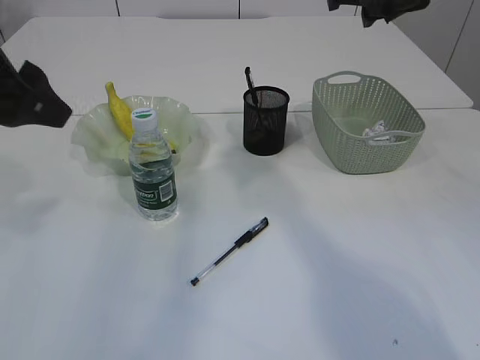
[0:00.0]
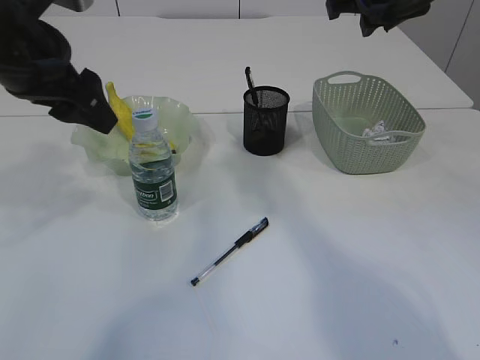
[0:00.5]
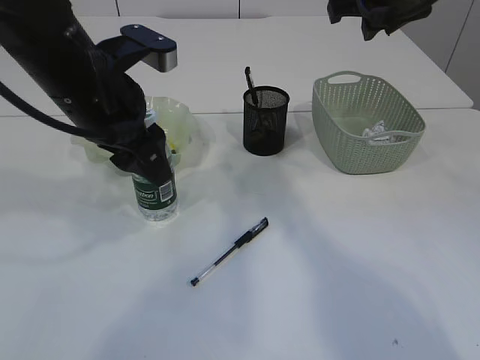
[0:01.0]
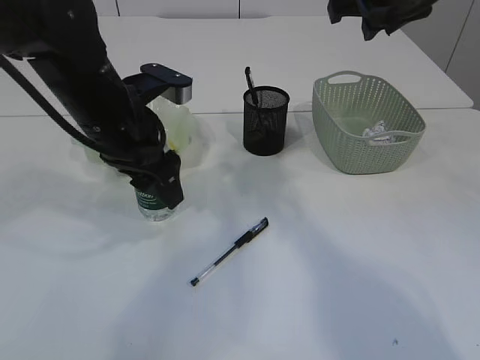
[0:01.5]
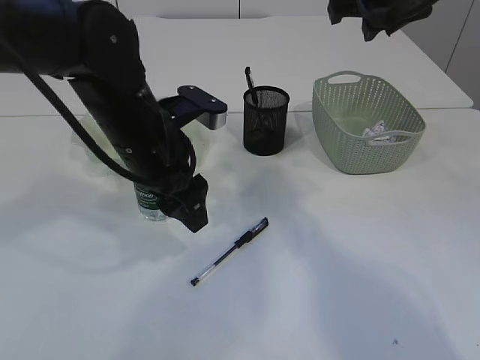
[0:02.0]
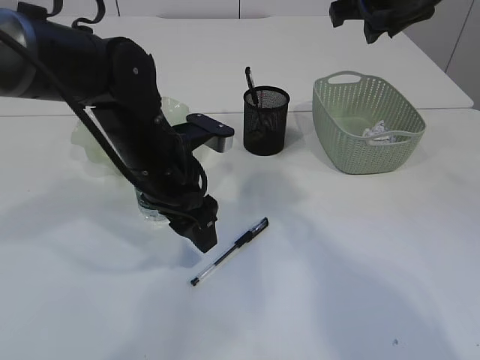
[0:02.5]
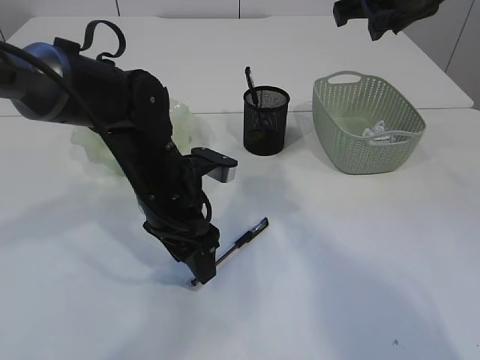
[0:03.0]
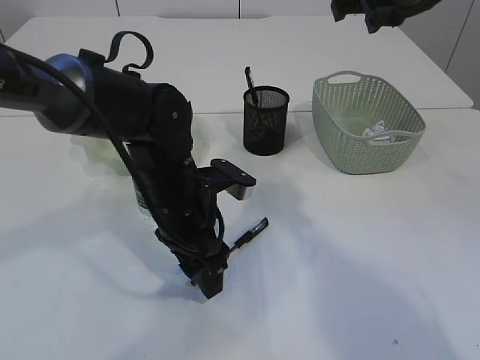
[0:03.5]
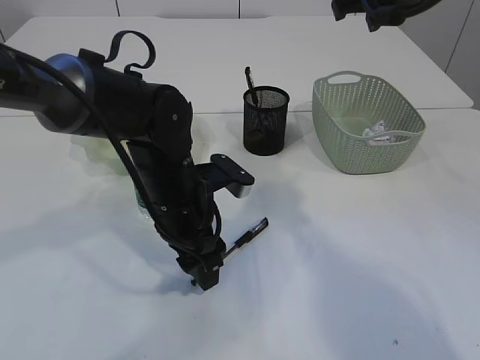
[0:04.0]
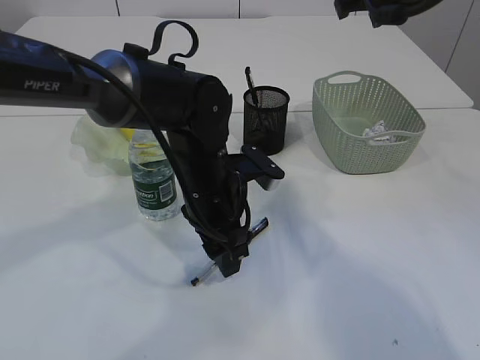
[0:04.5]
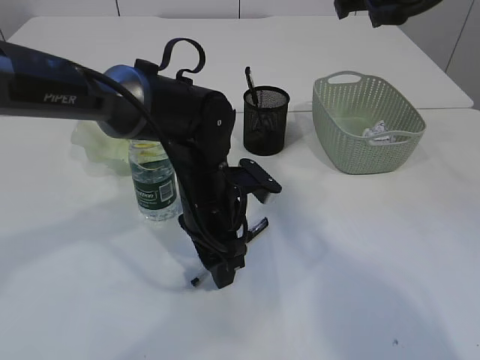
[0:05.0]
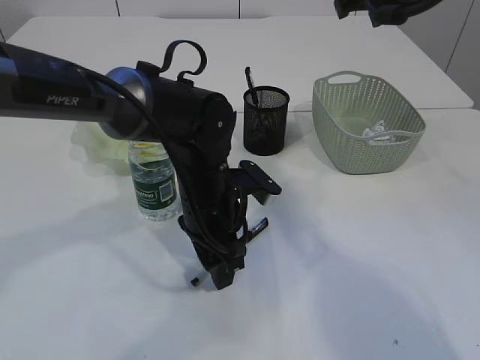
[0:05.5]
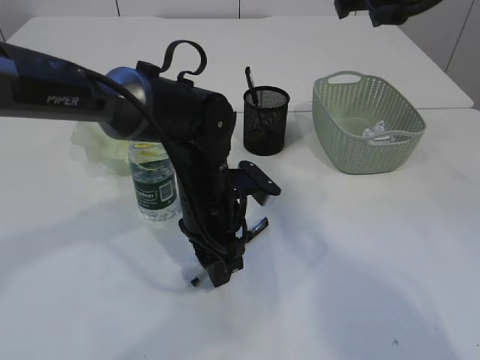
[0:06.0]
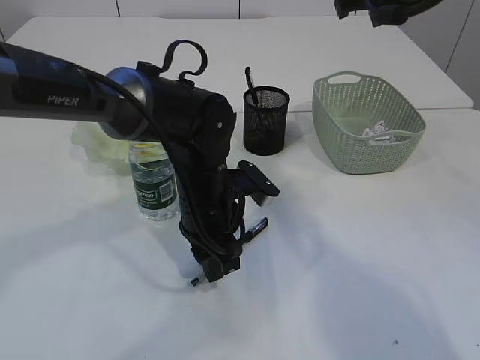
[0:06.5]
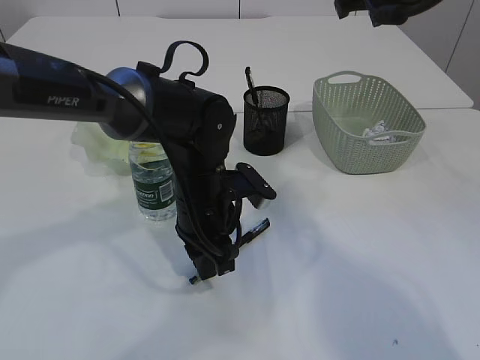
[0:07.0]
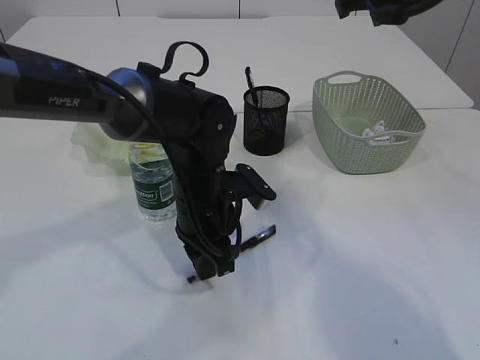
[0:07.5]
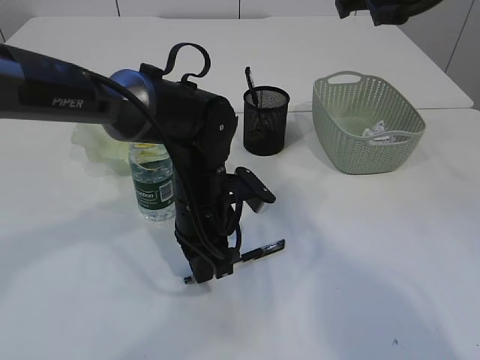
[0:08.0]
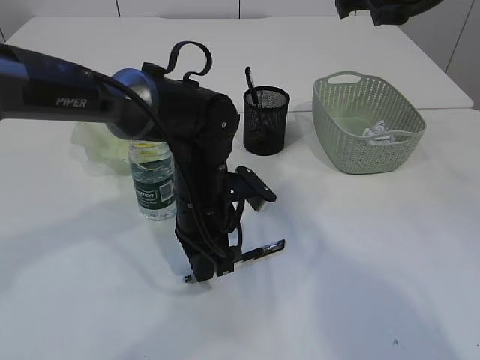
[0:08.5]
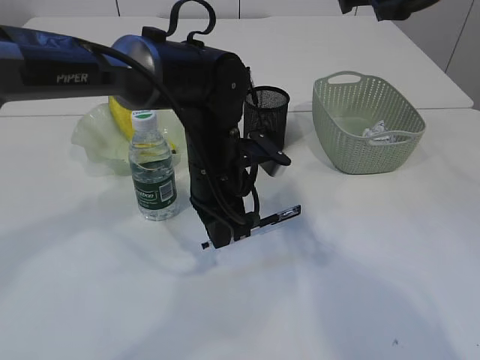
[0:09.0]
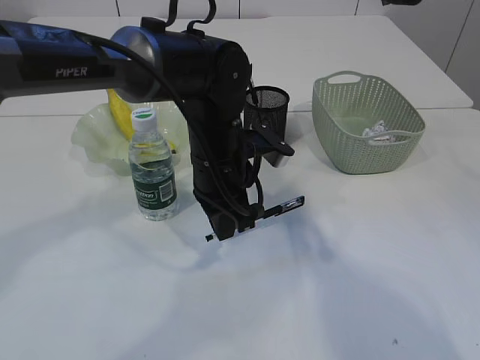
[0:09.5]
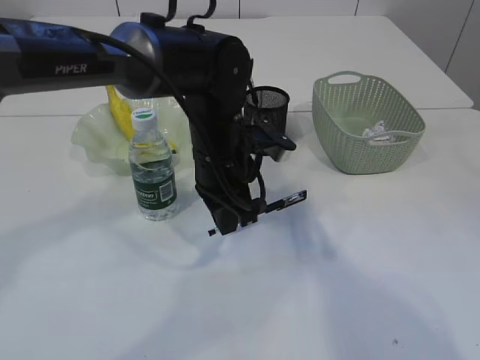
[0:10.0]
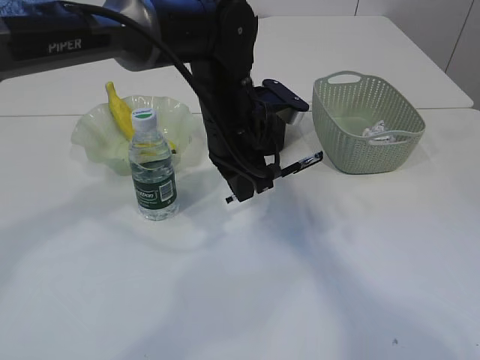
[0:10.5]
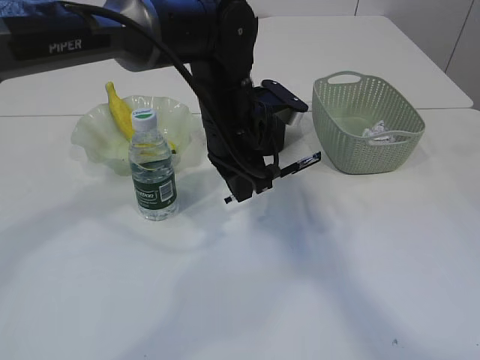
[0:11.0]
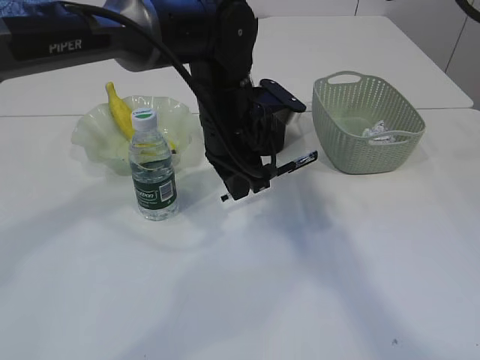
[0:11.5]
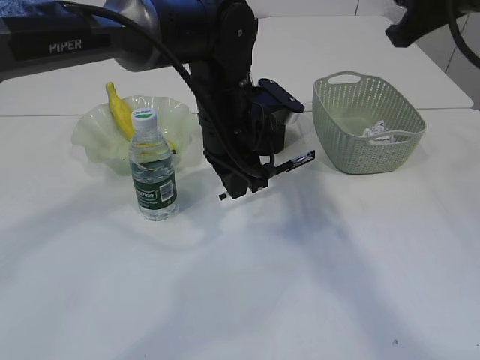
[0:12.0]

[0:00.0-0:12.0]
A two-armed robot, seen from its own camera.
Step, 0:00.0 to 0:10.5: Pick up the pen with right arm.
0:00.0 to 0:02.0: The left gripper moves to the right, downward and forward, approximately 20 cm.
0:02.0 to 0:04.0: The left gripper goes some 10 cm downward.
0:04.0 to 0:06.0: There are only small adjustments of the grippers.
0:06.0 to 0:08.0: The left gripper closes.
0:08.0 to 0:10.0: The left gripper is displaced upward by roughly 5 cm.
0:10.0 to 0:12.0: The right gripper heads backward, covering about 5 cm.

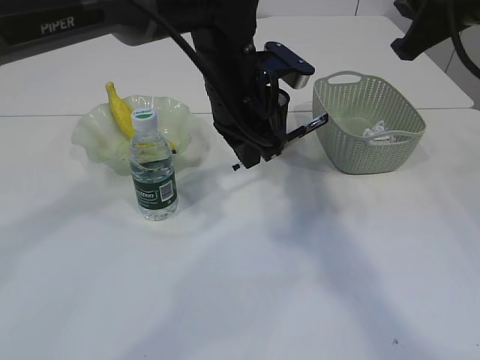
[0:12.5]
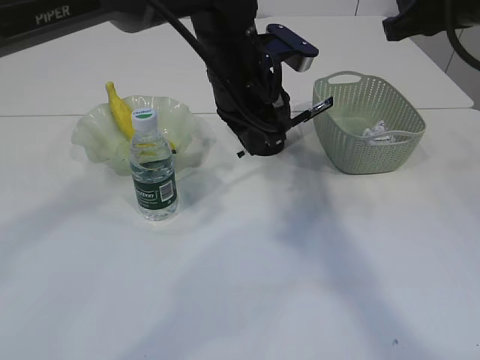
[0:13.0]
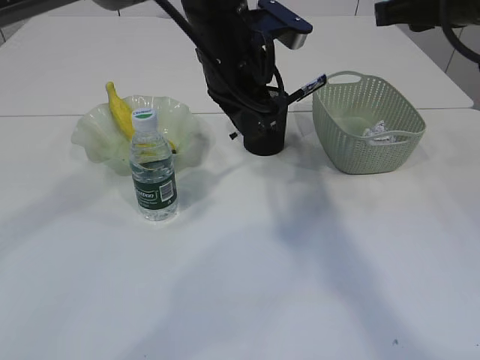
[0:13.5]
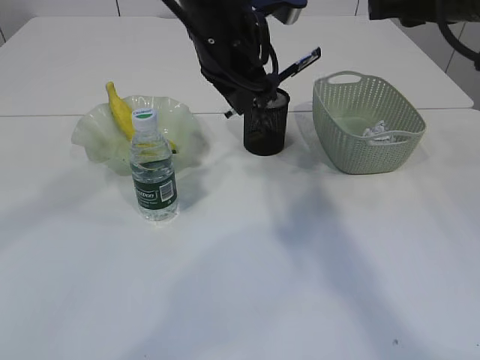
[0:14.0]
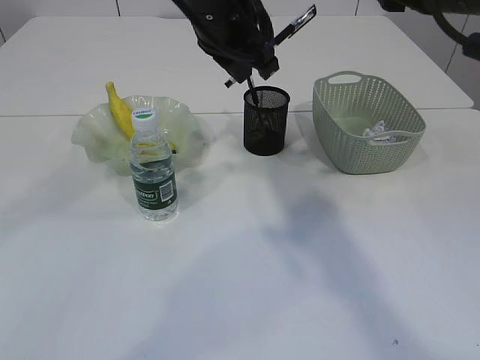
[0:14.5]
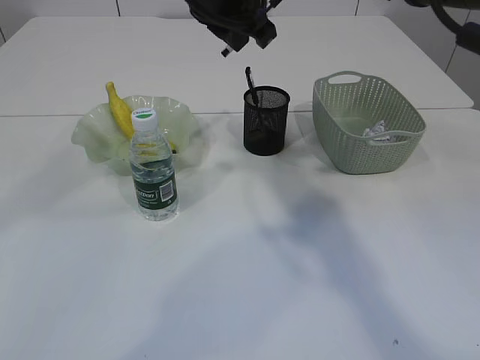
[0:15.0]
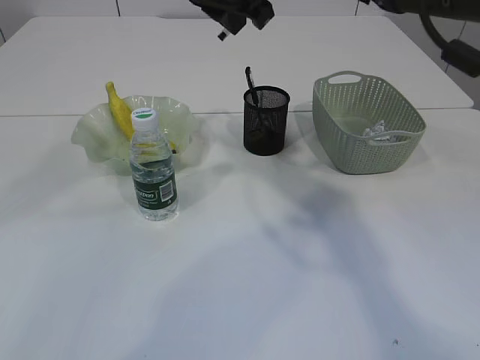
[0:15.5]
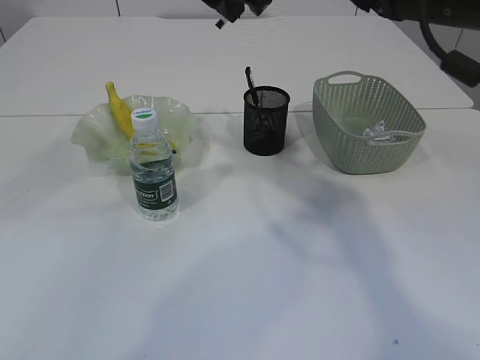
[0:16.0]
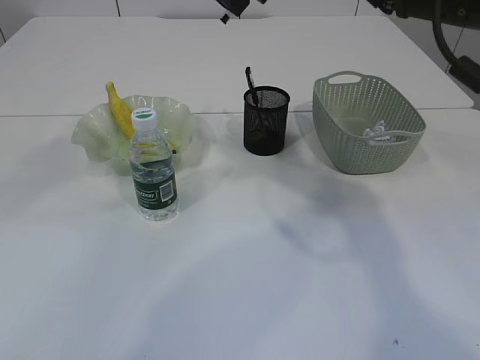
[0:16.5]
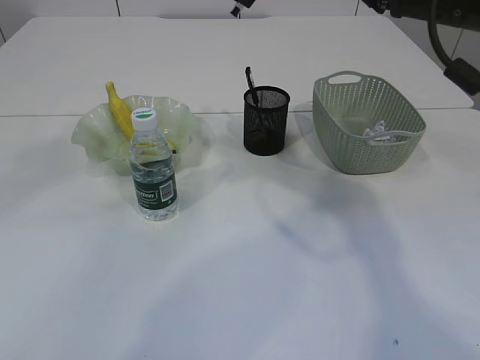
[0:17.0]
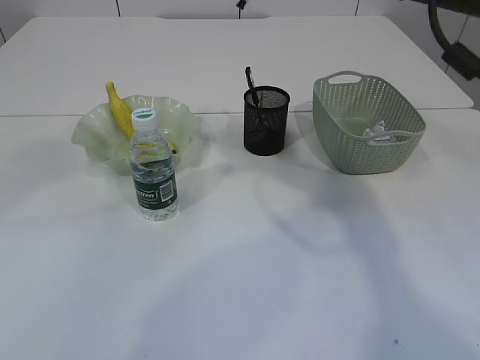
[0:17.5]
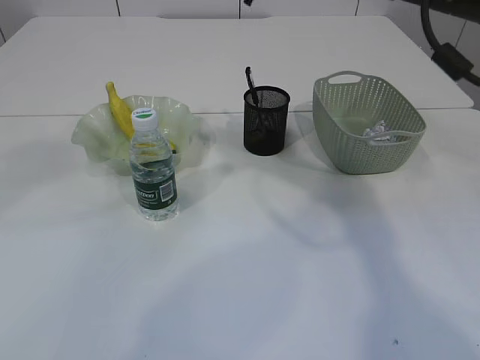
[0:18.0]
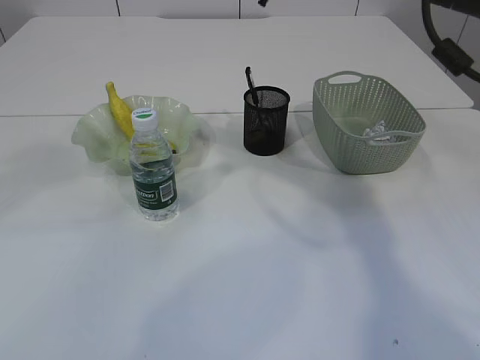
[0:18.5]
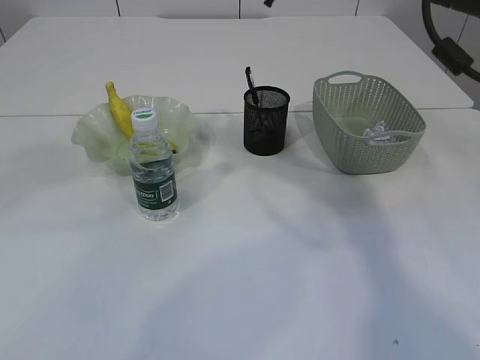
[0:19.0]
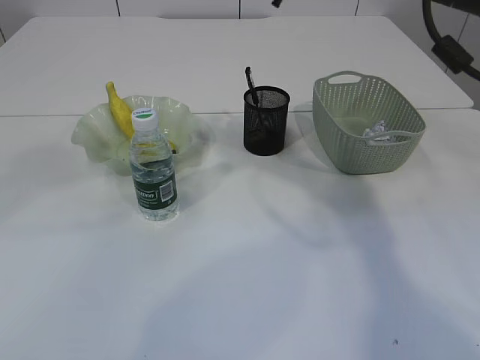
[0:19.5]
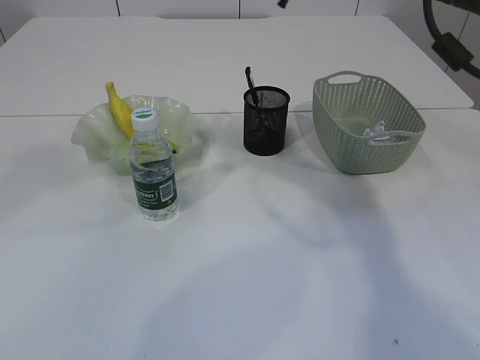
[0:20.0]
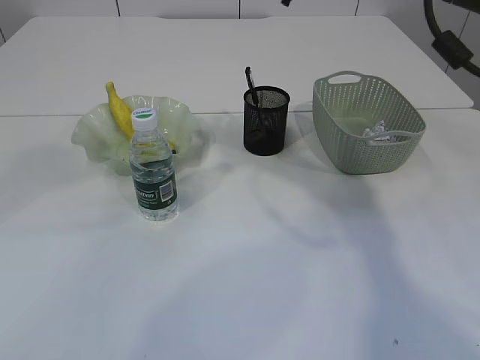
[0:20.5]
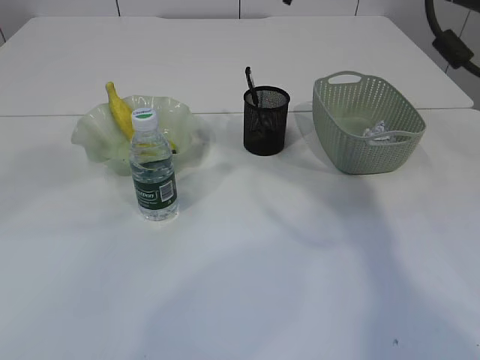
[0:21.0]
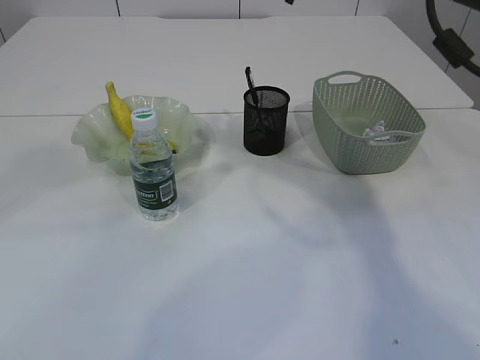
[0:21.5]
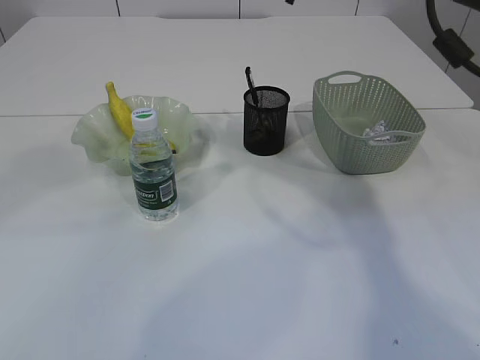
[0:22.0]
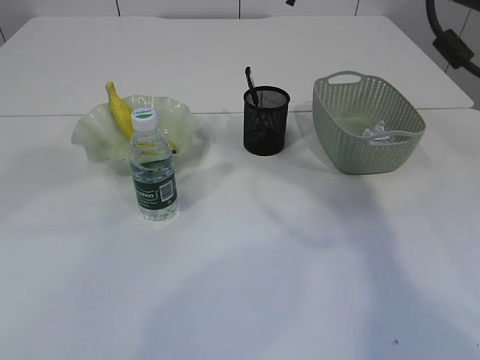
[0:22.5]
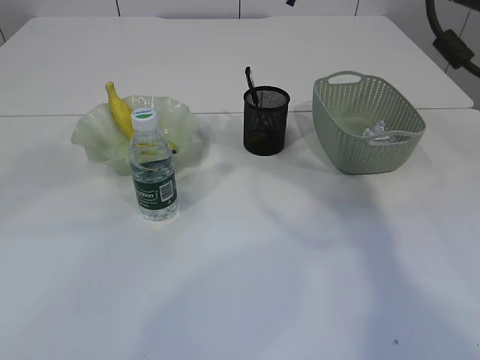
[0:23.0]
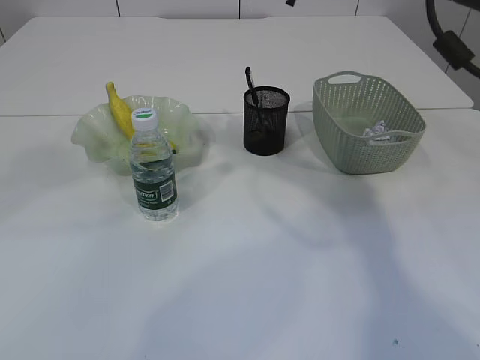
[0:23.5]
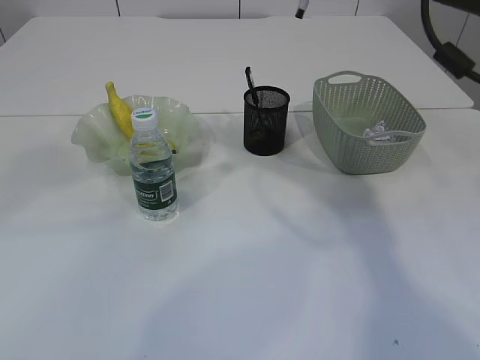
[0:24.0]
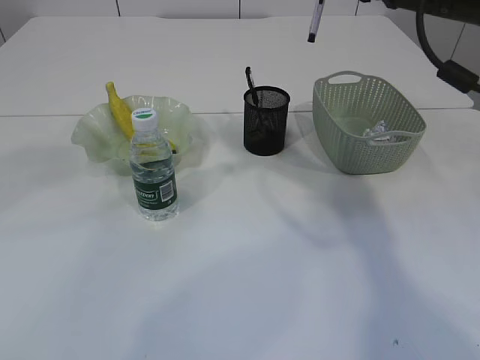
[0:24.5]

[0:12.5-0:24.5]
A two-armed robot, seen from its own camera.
Step, 0:12.5 to 0:24.0: transfer the pen to the right arm.
0:12.5 to 0:14.5: The left gripper is displaced upward by approximately 10 cm.
0:14.5 to 0:16.5: The left gripper is displaced upward by approximately 5 cm.
0:16.5 to 0:18.5: The grippers make only small movements.
0:20.5 to 0:22.5: Both grippers stay put.

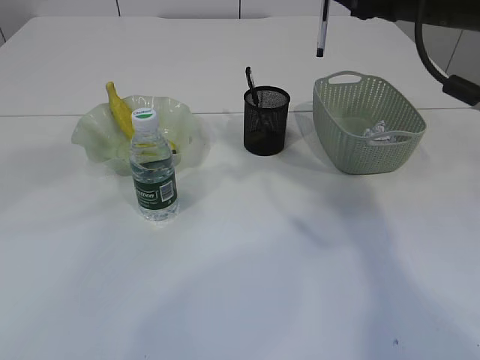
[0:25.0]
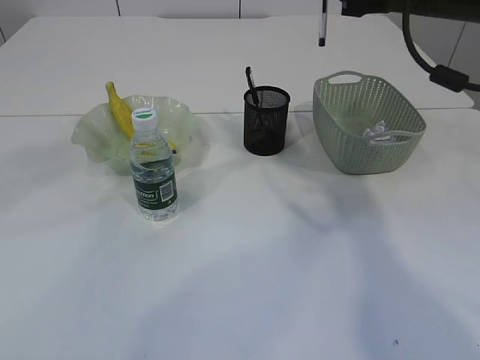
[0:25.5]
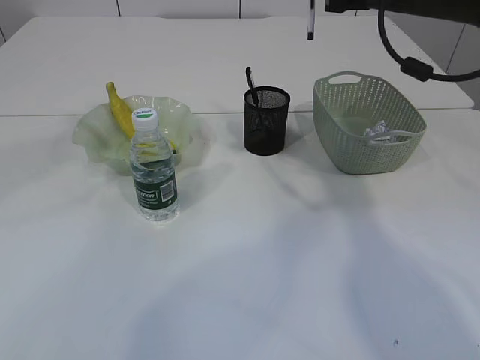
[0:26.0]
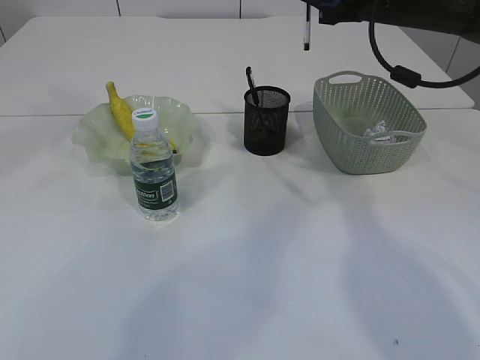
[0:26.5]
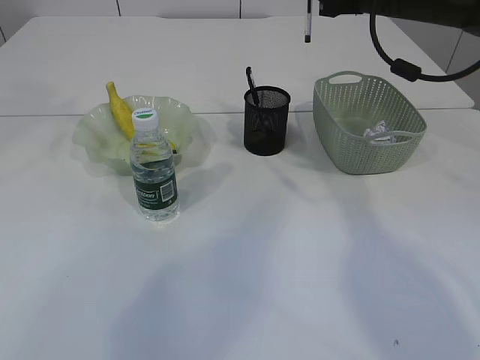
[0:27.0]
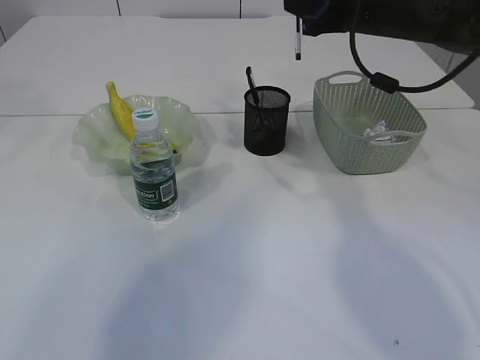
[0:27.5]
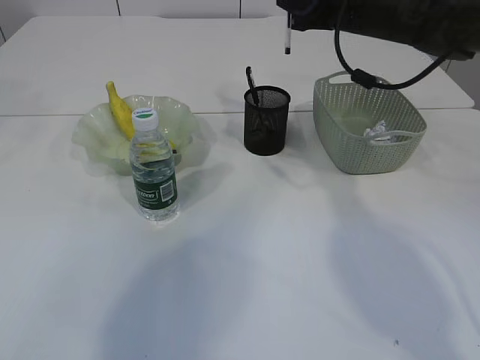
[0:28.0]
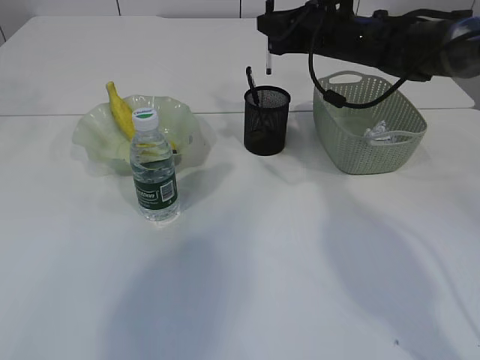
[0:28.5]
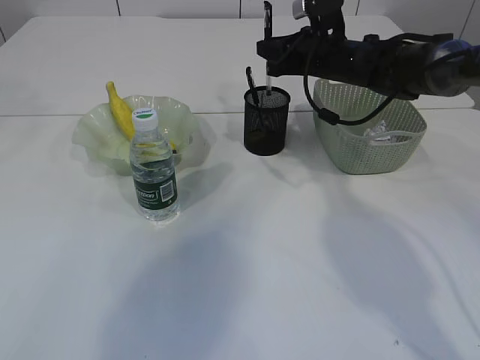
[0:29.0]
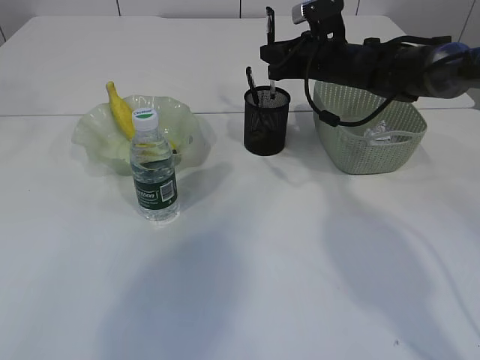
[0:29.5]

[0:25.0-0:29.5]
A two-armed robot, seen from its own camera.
0:25.0 to 0:27.0: The left gripper goes about 15 cm to the left and forward. The right gripper travels forward by about 10 cm.
0:27.0 to 0:29.5: The left gripper travels to the left by some 5 cm; the right gripper travels downward and forward by approximately 15 cm.
